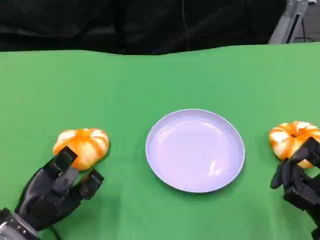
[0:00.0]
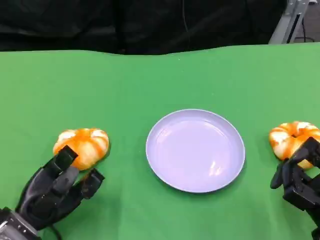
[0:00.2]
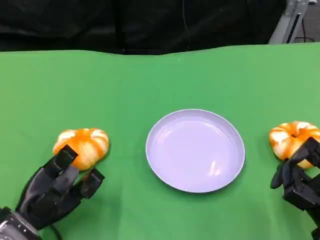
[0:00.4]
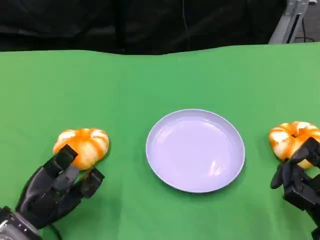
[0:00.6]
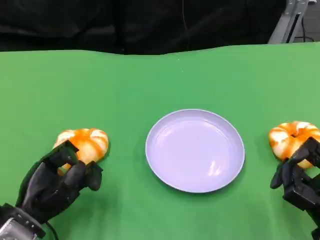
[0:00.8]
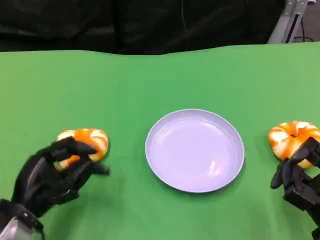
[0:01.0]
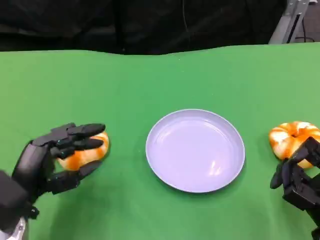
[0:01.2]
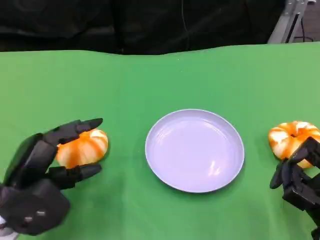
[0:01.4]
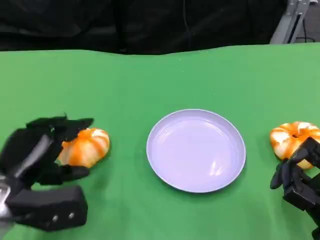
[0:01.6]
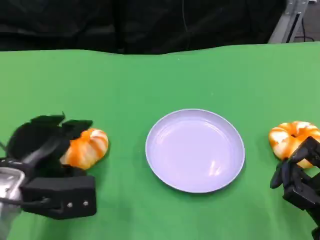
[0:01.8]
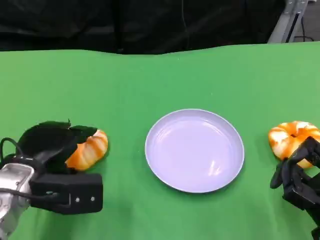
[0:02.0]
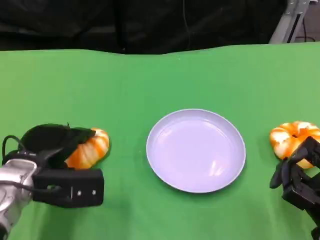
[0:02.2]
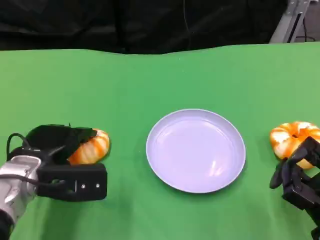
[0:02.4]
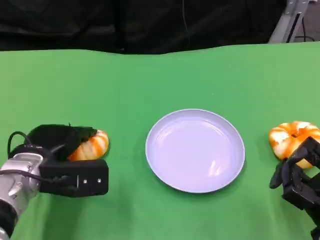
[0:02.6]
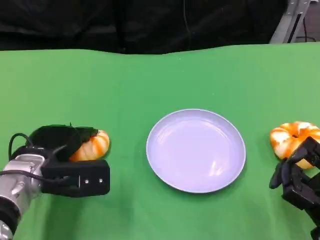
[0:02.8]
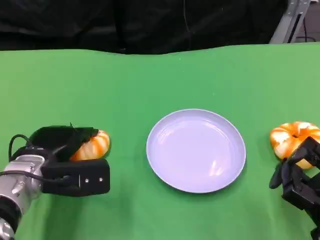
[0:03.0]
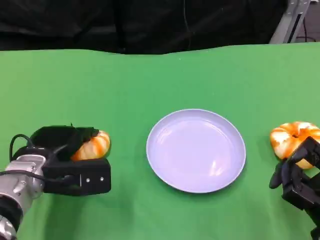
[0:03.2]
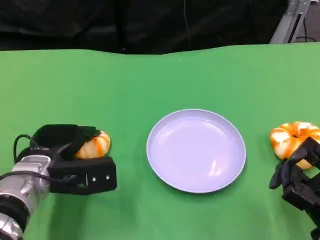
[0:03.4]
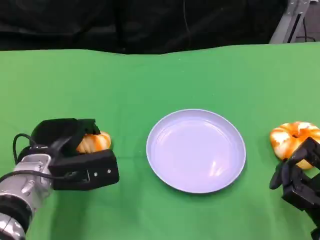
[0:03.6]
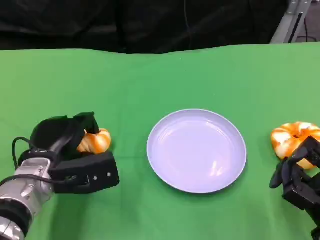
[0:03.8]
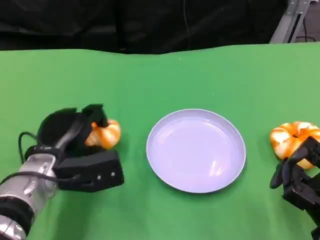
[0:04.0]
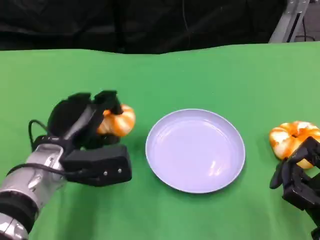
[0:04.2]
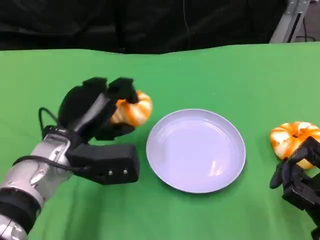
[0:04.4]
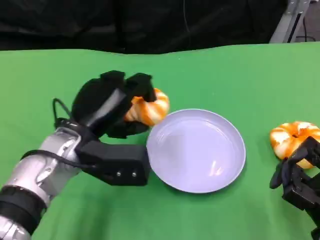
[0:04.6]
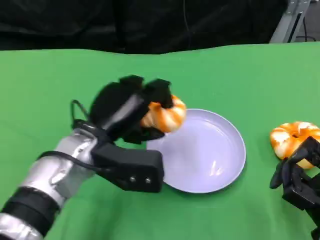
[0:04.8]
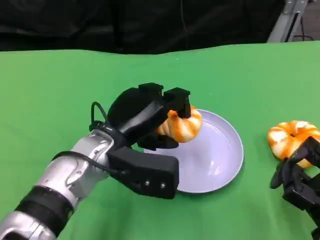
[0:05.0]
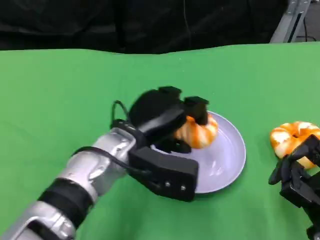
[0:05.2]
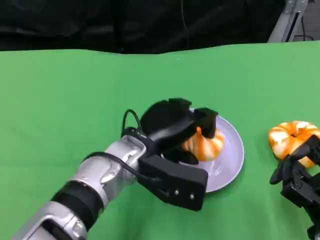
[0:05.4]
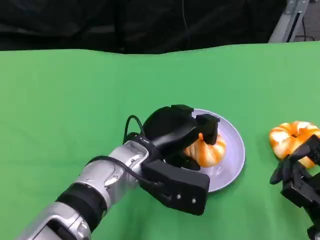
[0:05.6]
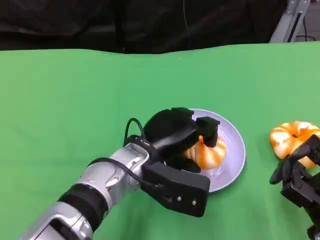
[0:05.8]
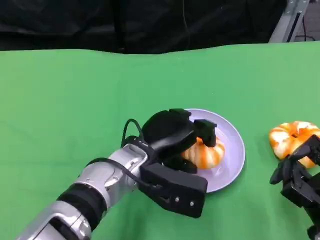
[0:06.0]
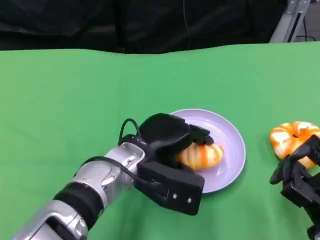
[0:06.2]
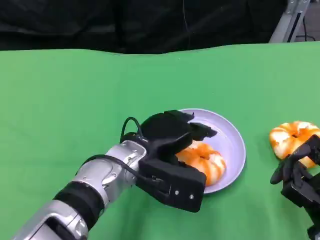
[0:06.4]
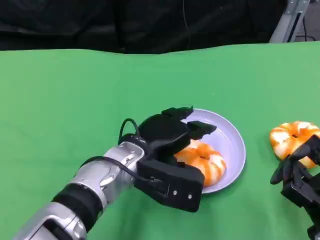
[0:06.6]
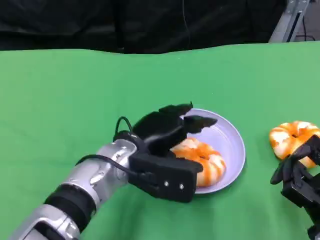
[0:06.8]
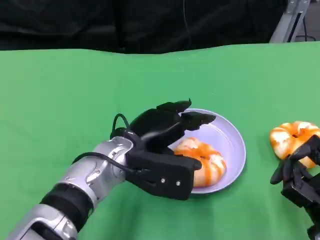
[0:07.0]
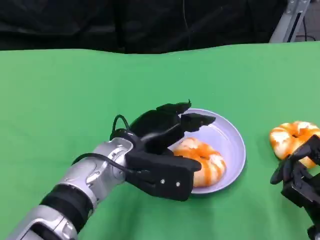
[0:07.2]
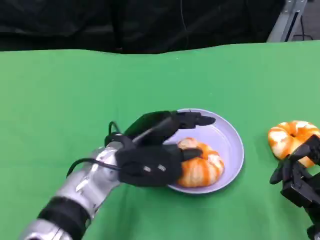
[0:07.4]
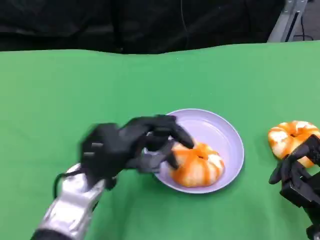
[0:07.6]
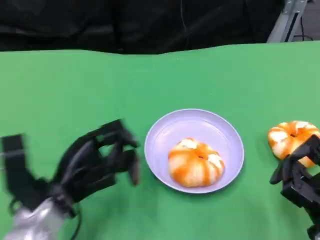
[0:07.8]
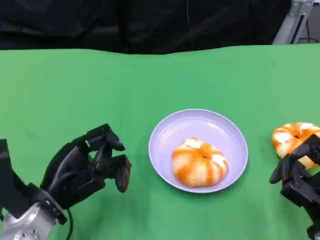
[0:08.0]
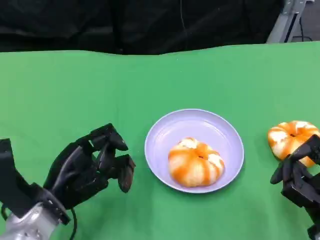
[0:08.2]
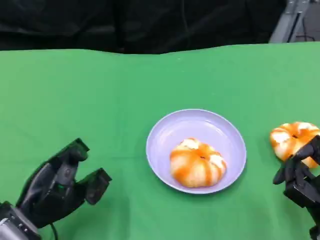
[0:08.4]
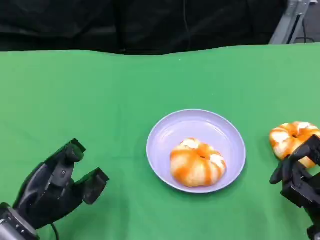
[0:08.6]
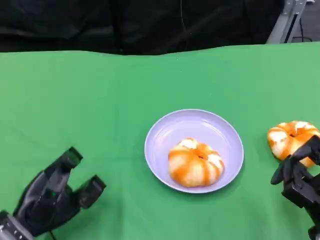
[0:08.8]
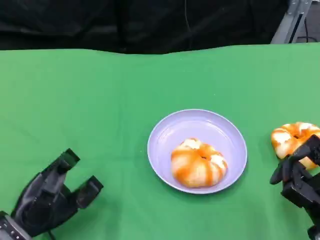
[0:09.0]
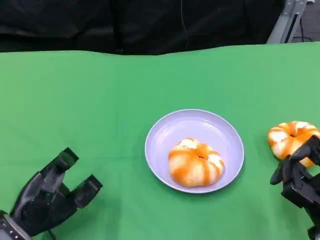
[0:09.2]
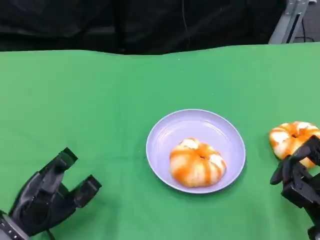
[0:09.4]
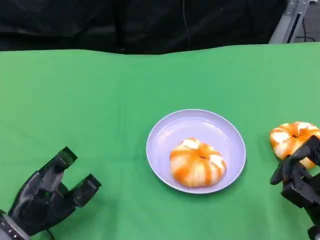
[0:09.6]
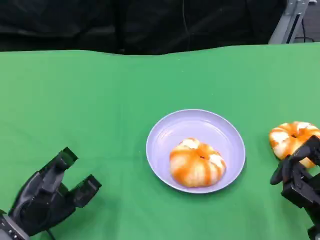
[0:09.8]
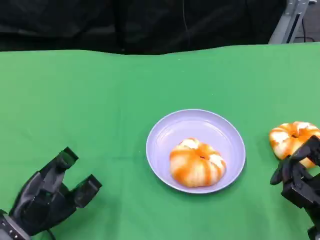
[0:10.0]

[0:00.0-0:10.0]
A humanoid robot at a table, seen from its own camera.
Task of the whole recording: Grasp the bread from the table and place it into the plate.
0:00.0 to 0:01.4: The left hand travels upward by about 5 cm.
0:01.4 to 0:02.8: The left hand moves forward, about 5 cm.
0:04.2 to 0:05.8: The left hand is displaced to the right by about 10 cm.
0:05.8 to 0:07.2: The hands move only a little.
0:07.2 to 0:08.6: The left hand shifts roughly 20 cm to the left, downward and backward.
0:08.6 to 0:10.0: There are only small adjustments of the hands.

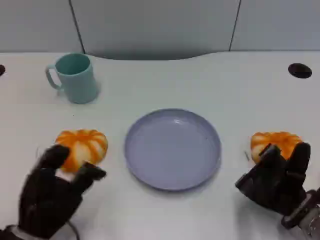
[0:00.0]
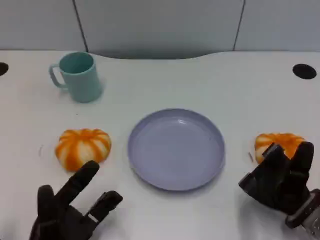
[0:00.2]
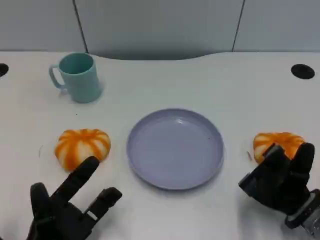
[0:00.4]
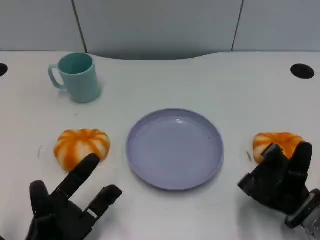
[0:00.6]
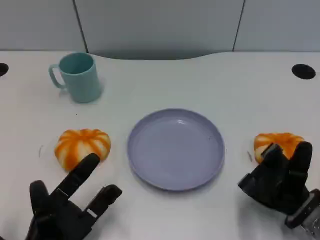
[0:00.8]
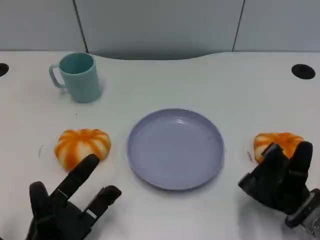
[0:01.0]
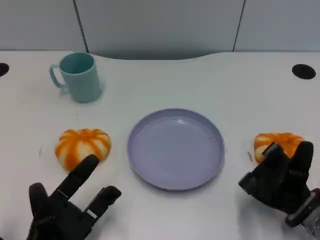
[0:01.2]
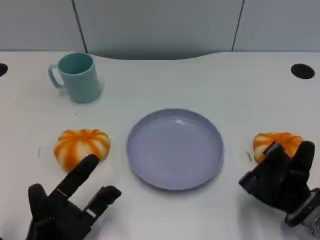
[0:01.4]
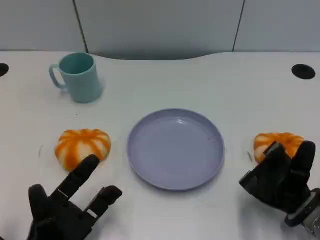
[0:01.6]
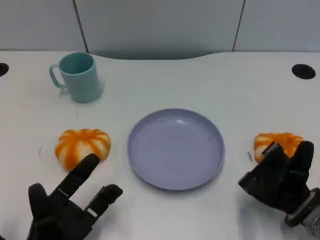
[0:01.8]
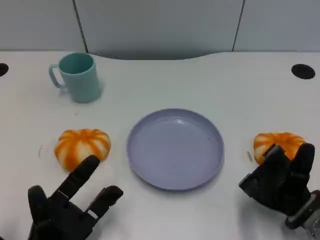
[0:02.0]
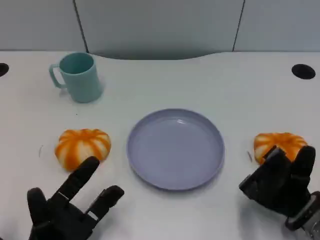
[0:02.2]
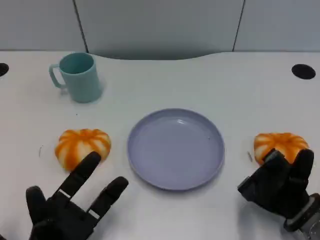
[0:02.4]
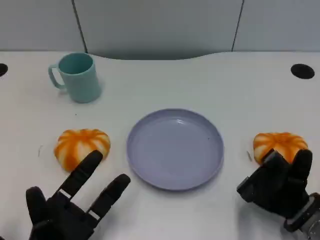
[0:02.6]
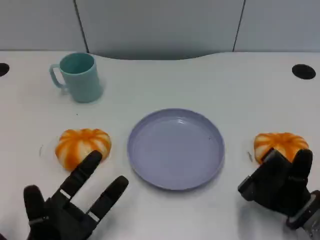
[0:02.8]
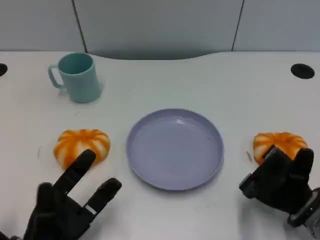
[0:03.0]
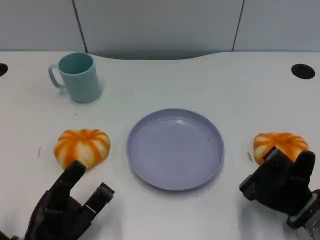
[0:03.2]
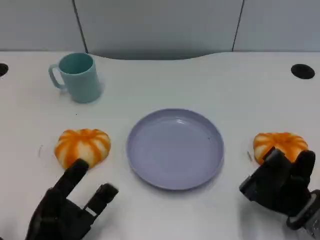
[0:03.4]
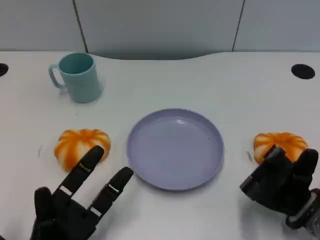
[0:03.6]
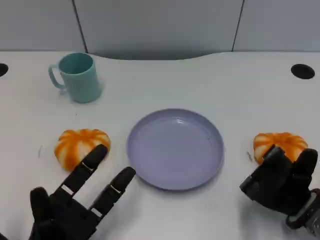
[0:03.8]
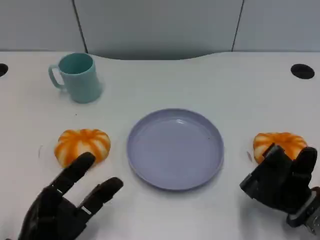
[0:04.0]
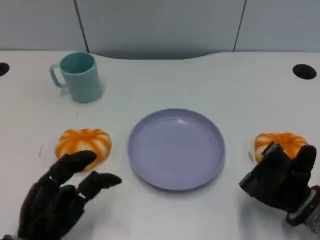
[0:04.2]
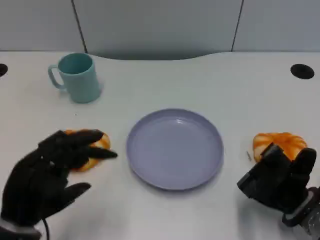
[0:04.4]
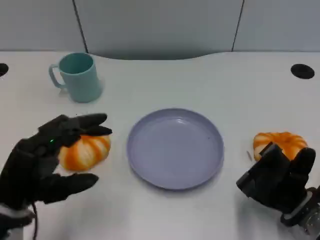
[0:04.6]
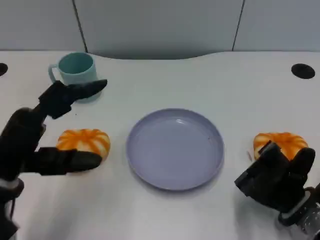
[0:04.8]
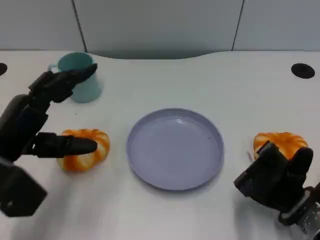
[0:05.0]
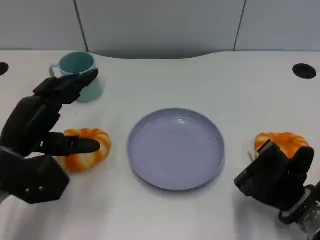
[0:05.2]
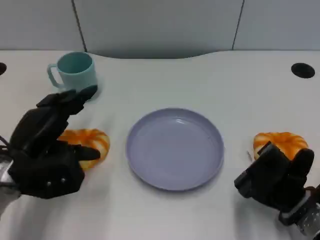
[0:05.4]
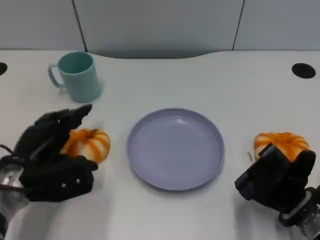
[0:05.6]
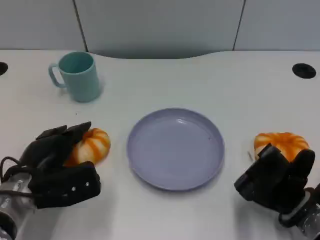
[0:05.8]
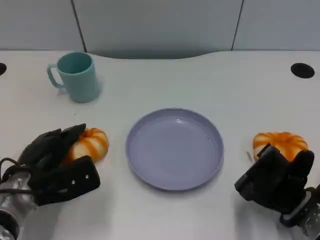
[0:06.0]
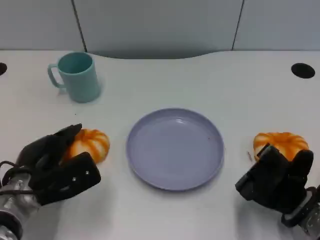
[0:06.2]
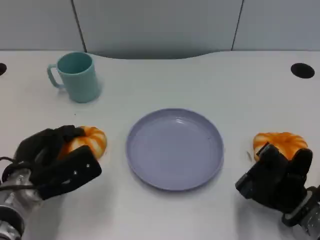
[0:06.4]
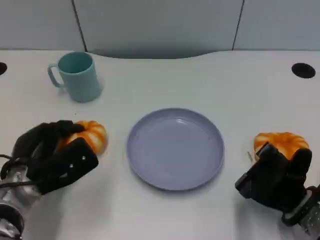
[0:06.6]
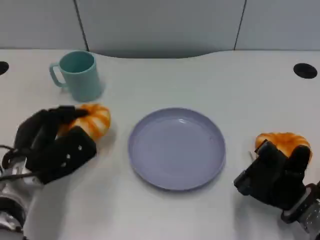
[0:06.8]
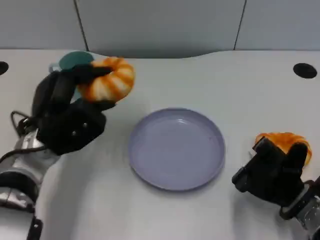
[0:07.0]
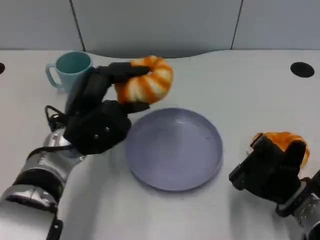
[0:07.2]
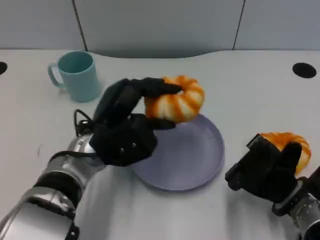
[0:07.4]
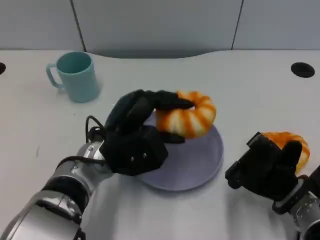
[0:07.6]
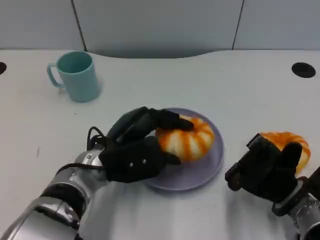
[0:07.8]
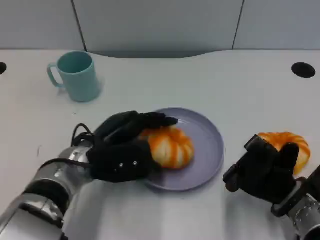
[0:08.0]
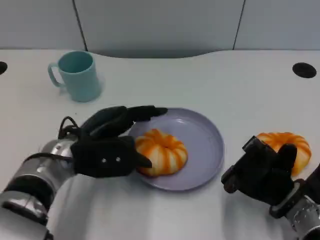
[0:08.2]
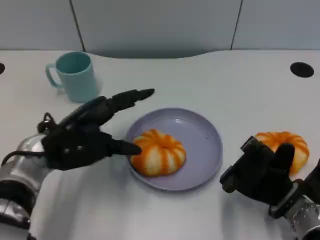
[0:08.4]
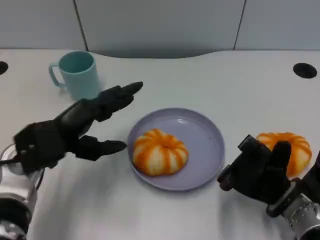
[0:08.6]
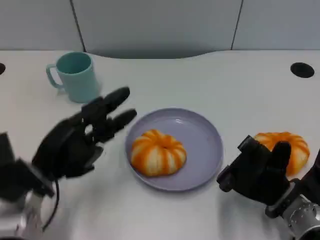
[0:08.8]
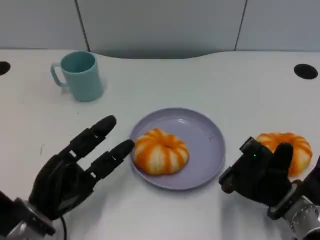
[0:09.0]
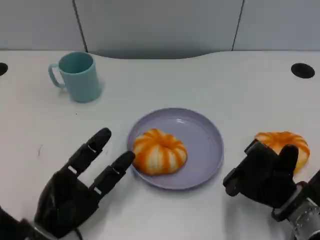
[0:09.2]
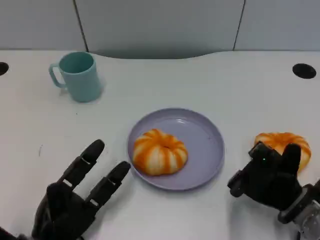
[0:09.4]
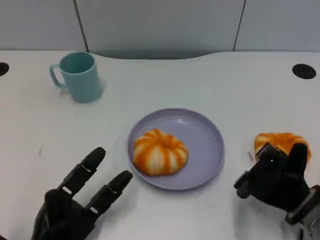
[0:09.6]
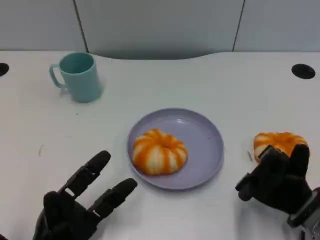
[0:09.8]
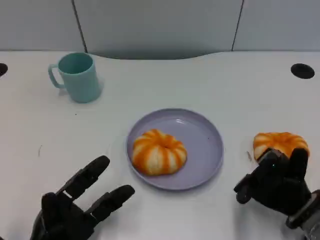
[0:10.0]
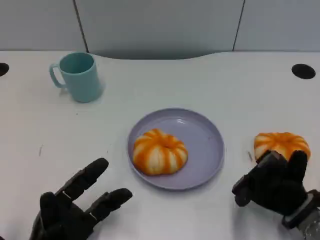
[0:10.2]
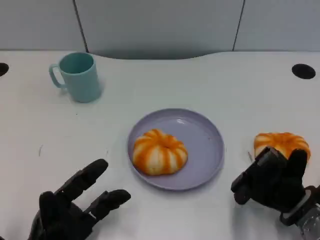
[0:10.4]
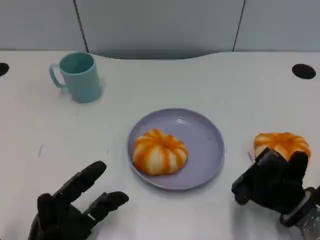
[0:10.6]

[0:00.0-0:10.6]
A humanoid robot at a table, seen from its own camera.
Task of the whole recording: Grasp the bread from the table and place it into the plate.
0:00.0 to 0:01.6: The hands stay close to where they were, moving slightly.
0:01.6 to 0:03.0: The hands stay close to where they were, moving slightly.
0:03.0 to 0:04.6: The left hand goes some 10 cm upward.
0:04.6 to 0:06.0: The left hand is displaced forward and downward by about 10 cm.
0:06.0 to 0:07.6: The left hand heads to the right, covering roughly 10 cm.
0:07.6 to 0:09.0: The left hand is displaced to the left, backward and downward by approximately 15 cm.
0:09.0 to 0:10.6: The left hand shifts by approximately 5 cm.

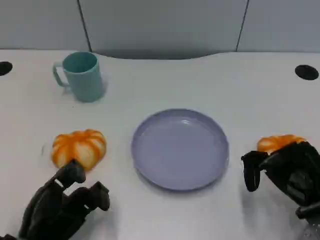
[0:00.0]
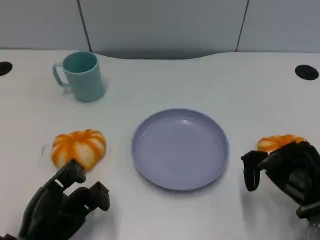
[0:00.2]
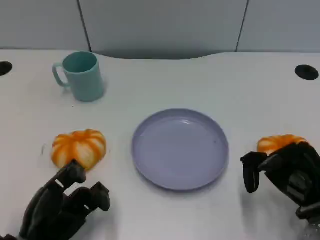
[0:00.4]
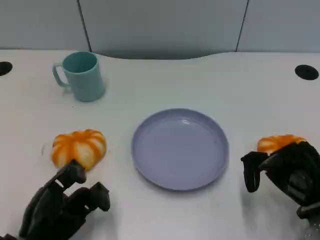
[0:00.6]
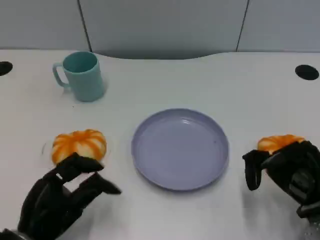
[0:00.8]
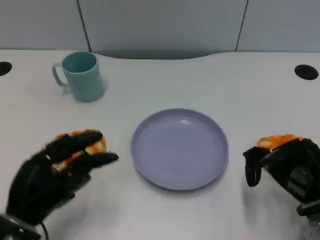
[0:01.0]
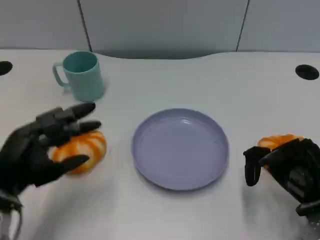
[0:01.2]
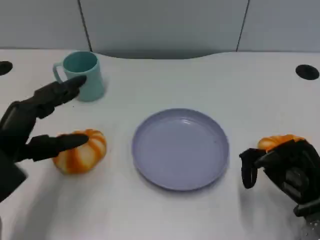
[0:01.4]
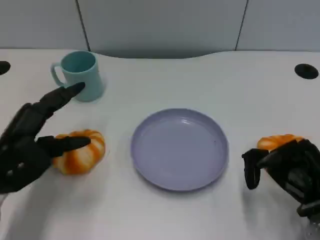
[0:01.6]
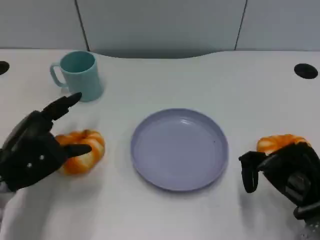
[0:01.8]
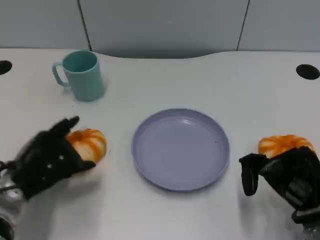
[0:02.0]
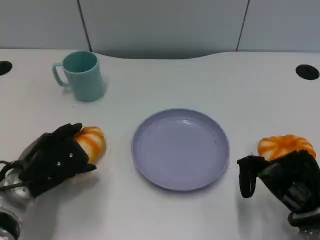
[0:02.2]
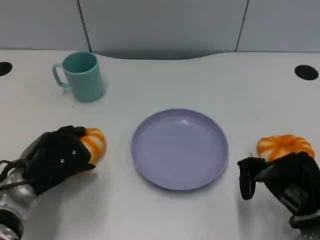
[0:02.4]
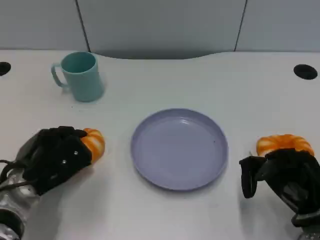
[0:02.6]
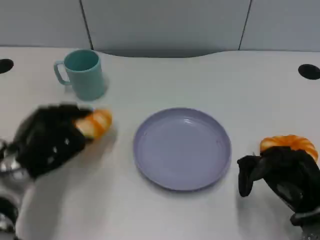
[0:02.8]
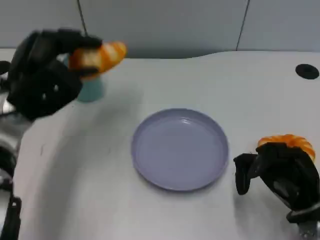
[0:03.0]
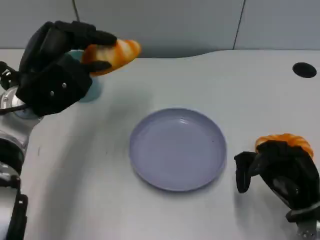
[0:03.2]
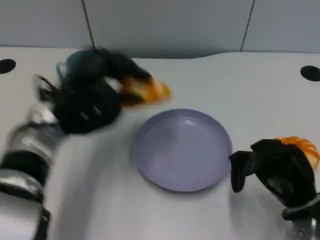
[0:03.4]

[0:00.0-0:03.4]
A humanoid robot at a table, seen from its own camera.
Task of the whole recording: Grasp the bread from the table and place it into the plate.
0:00.0 to 0:01.6: The left hand travels forward and upward by about 10 cm.
0:01.6 to 0:03.4: The left hand moves up and down over about 10 cm, changing direction 2 times.
